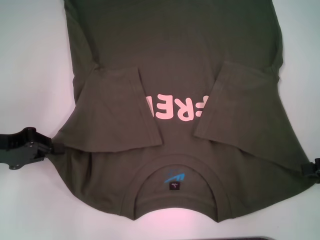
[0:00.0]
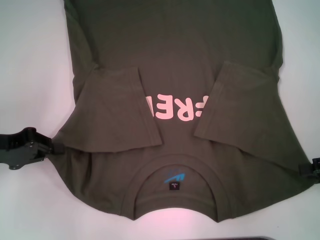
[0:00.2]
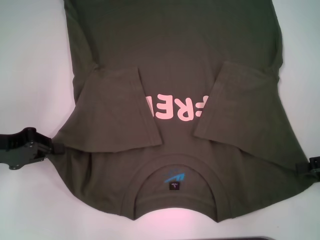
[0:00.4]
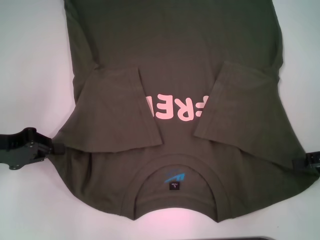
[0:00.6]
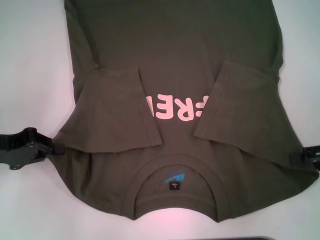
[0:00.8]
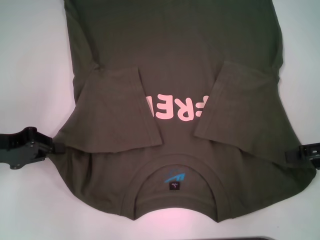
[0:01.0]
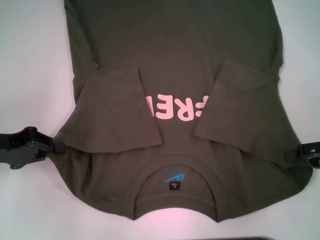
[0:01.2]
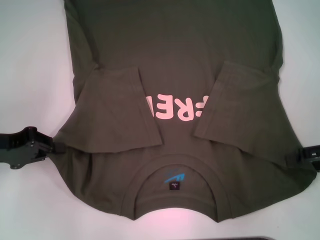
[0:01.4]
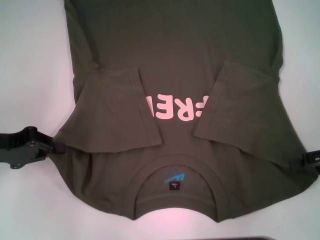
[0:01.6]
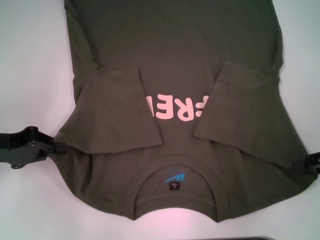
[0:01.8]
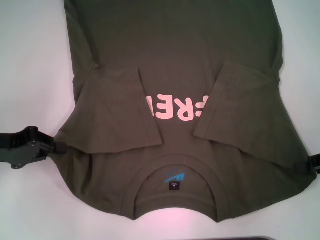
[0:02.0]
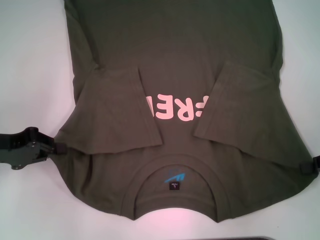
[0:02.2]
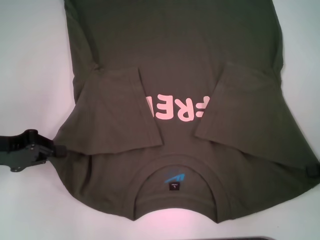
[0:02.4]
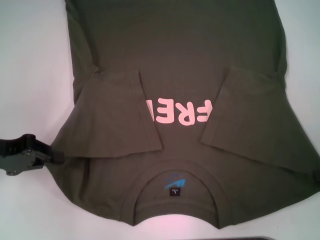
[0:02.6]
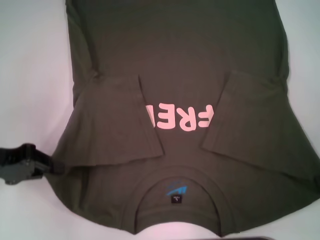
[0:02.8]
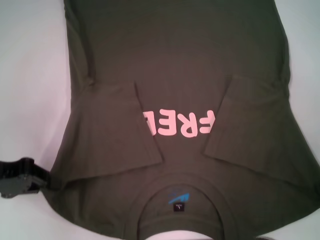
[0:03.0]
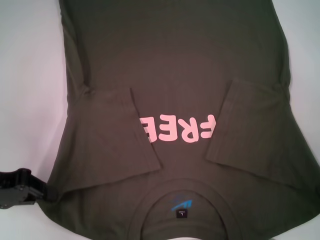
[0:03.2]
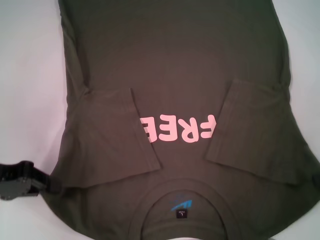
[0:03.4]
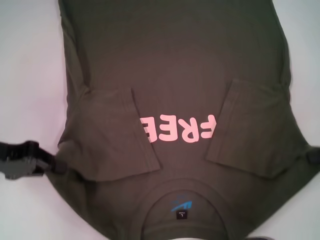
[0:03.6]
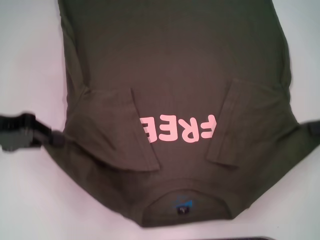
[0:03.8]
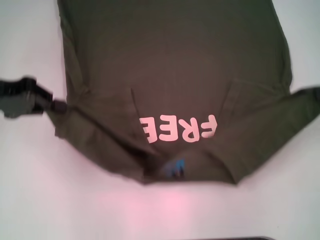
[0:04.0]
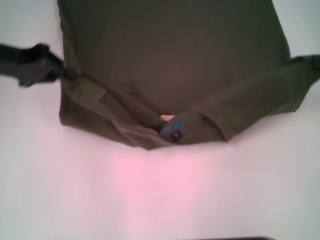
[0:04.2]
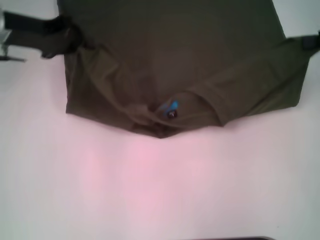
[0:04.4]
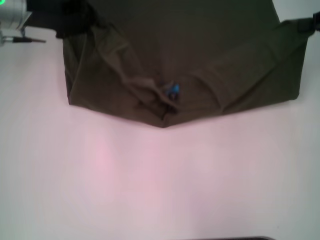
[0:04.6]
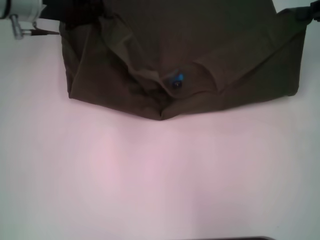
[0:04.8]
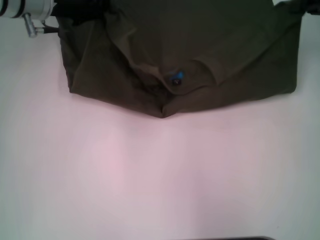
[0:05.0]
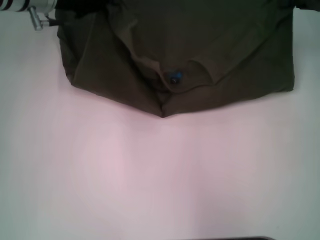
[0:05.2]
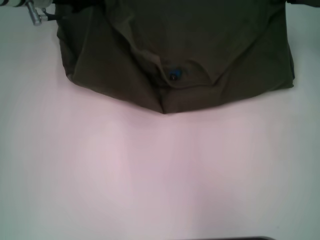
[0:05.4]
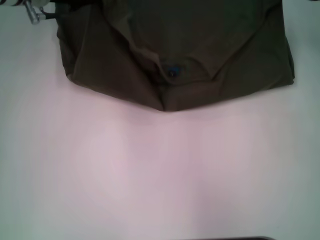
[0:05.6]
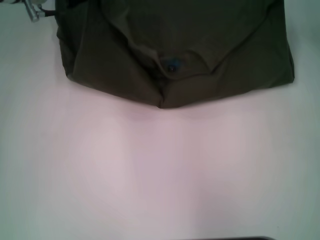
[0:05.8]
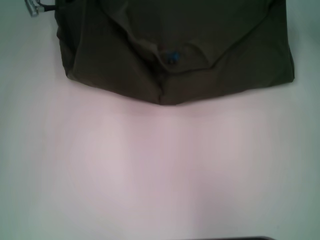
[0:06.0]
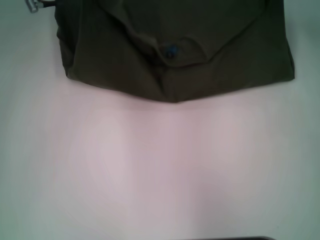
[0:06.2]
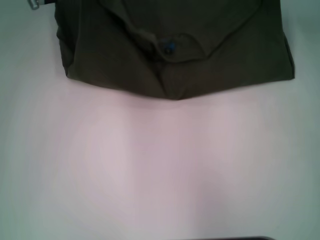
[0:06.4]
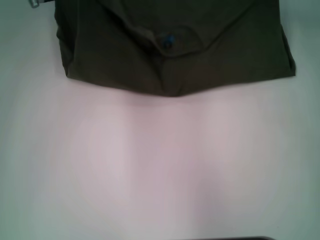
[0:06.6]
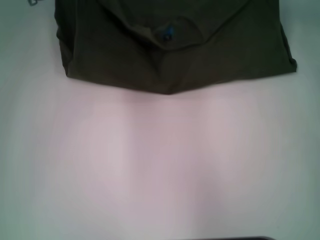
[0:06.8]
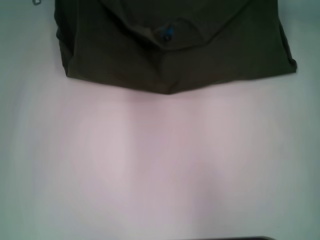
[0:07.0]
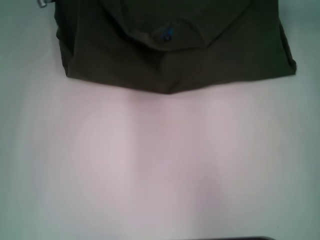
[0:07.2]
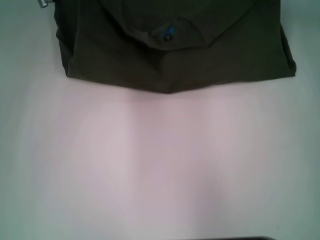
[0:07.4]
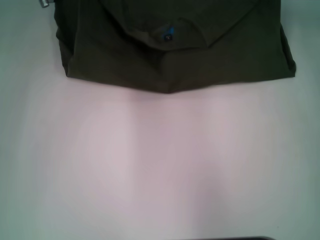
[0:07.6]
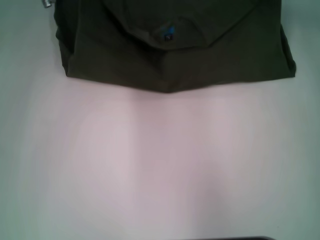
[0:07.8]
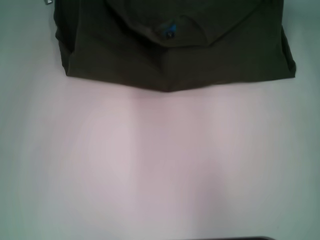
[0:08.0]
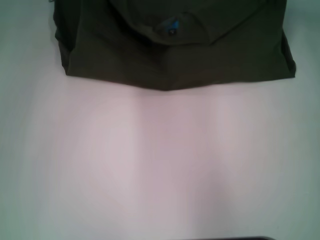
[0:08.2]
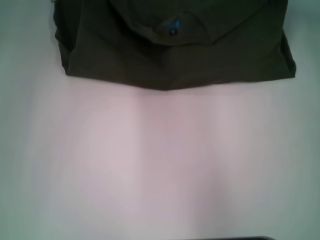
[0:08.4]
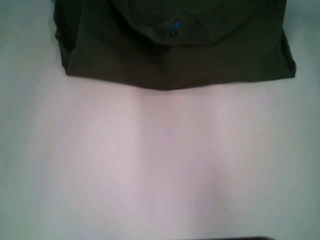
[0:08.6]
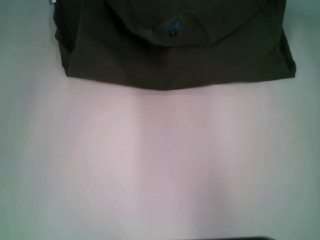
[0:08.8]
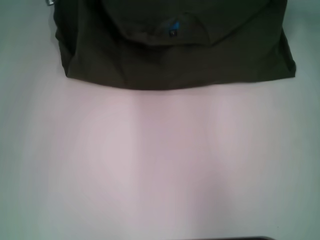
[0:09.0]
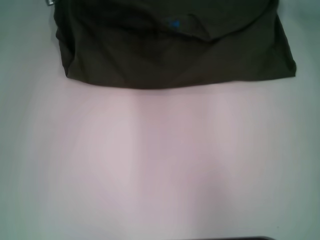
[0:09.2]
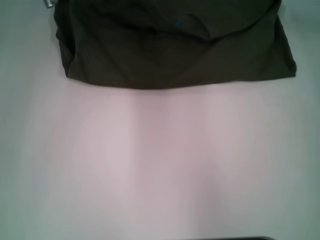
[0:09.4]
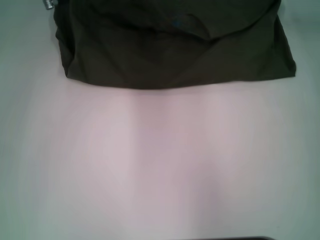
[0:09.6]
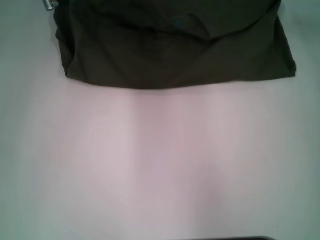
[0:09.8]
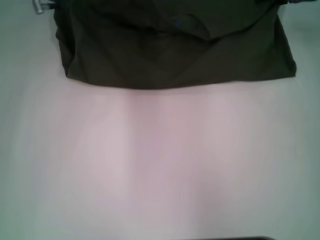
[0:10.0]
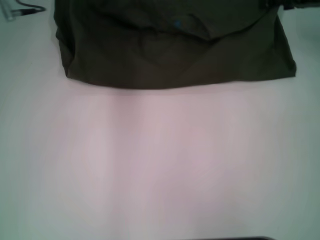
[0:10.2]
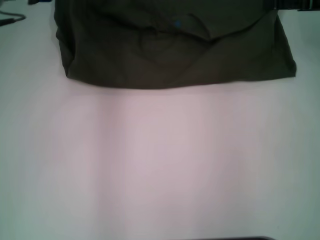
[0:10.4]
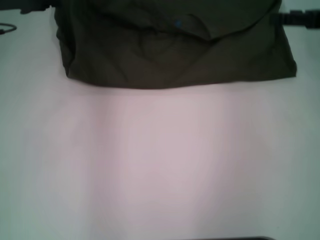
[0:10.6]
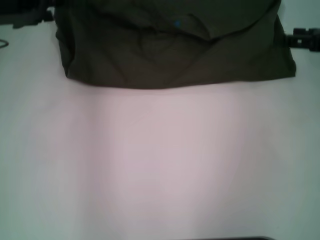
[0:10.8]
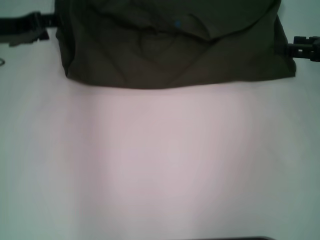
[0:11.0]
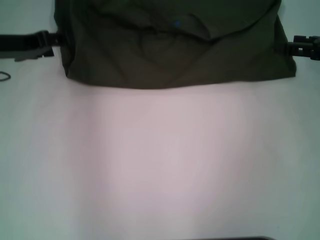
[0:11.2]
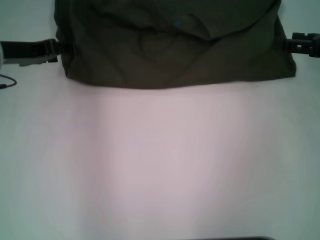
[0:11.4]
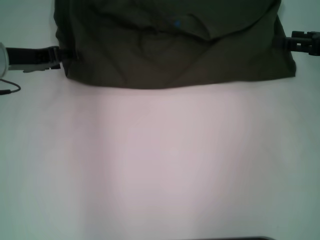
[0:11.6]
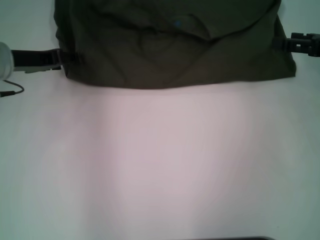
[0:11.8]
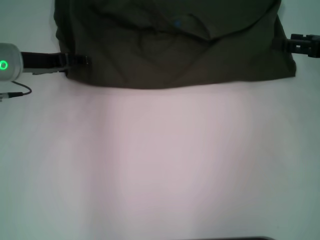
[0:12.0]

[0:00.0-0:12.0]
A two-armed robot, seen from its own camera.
Step, 0:02.4 to 0:10.6: Fold the clothes with your left hand.
Step, 0:02.4 to 0:10.6: Fold the clothes with your right hand.
0:00.0 to 0:01.6: The grippers stay close to where they were, moving slightly.
0:01.6 to 0:03.0: The right gripper closes its fingers.
0:03.0 to 0:04.4: The right gripper travels forward and upward by some 15 cm, while the left gripper travels forward, upward and to the right by some 20 cm.
0:04.4 to 0:06.0: The left gripper travels forward and to the right by approximately 10 cm. Meanwhile the right gripper heads forward and to the left, covering approximately 10 cm.
0:06.0 to 0:07.6: The grippers make only small movements.
0:09.0 to 0:10.4: The left gripper goes about 10 cm to the left and backward, and opens. The right gripper travels backward by roughly 5 cm, and opens up.
0:10.4 to 0:12.0: The right gripper travels backward by roughly 5 cm. The left gripper shifts about 10 cm downward.

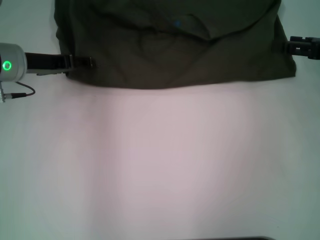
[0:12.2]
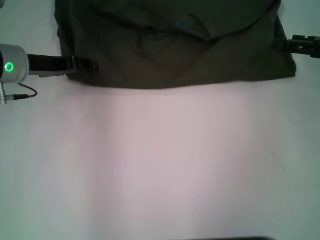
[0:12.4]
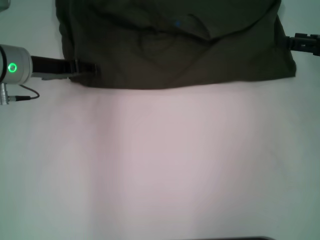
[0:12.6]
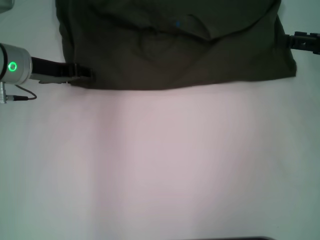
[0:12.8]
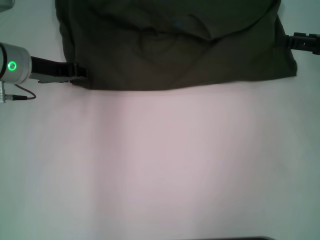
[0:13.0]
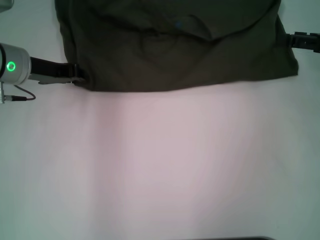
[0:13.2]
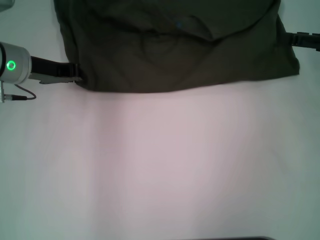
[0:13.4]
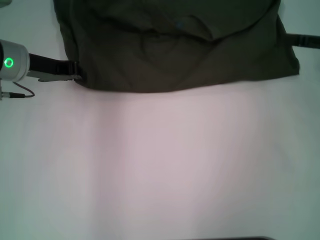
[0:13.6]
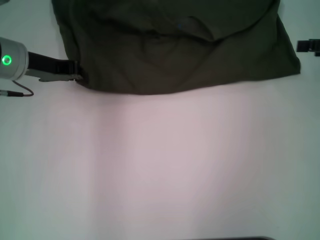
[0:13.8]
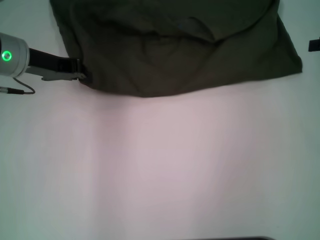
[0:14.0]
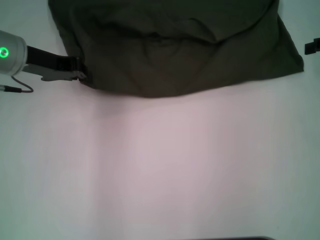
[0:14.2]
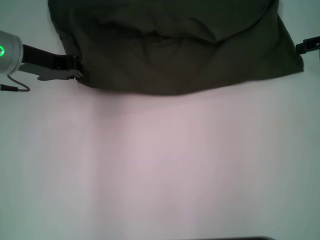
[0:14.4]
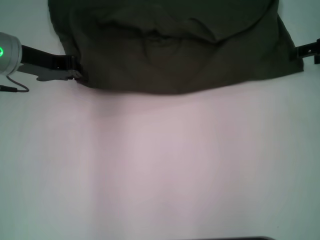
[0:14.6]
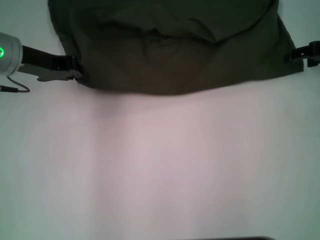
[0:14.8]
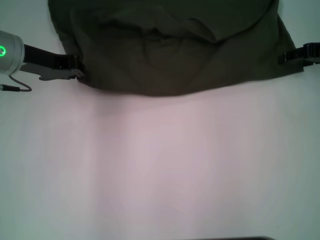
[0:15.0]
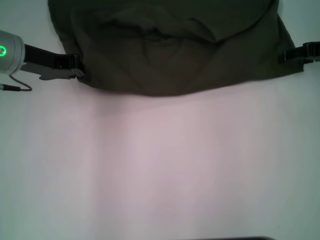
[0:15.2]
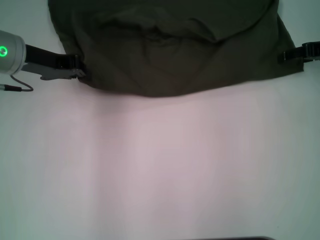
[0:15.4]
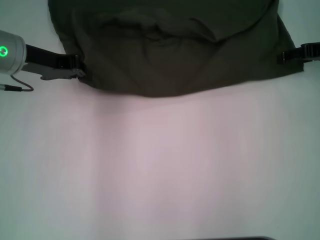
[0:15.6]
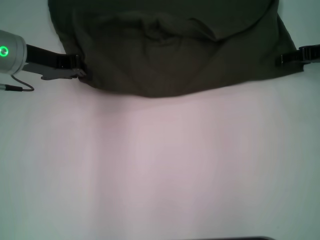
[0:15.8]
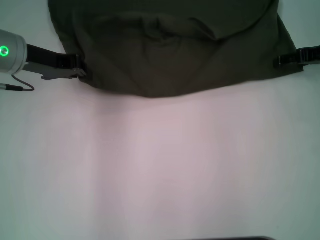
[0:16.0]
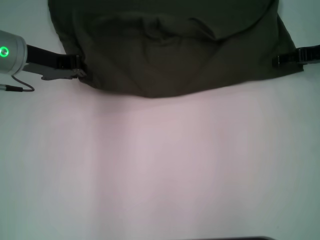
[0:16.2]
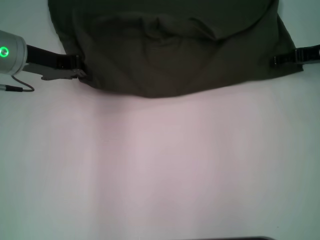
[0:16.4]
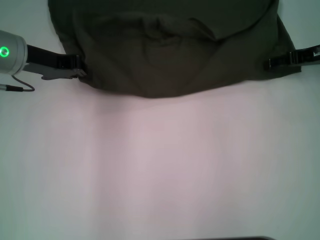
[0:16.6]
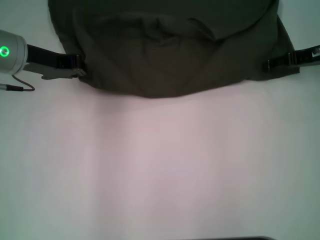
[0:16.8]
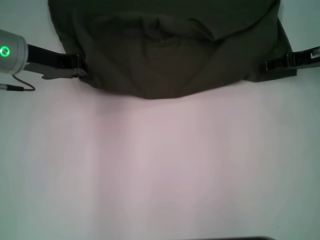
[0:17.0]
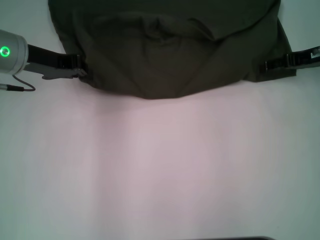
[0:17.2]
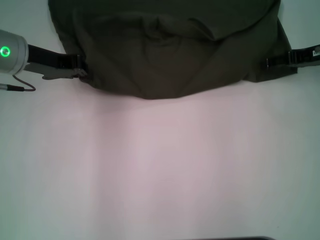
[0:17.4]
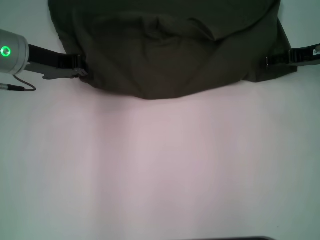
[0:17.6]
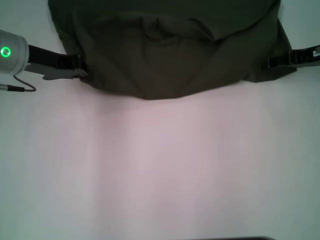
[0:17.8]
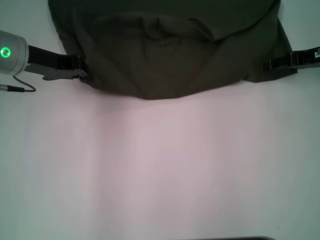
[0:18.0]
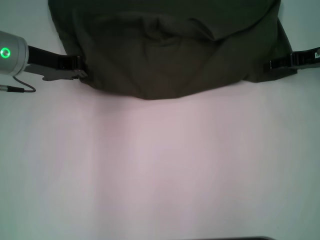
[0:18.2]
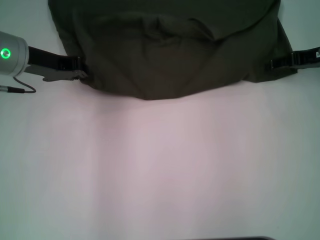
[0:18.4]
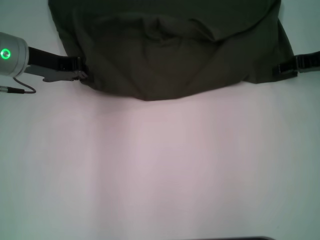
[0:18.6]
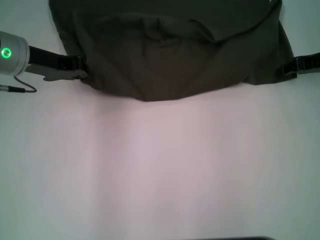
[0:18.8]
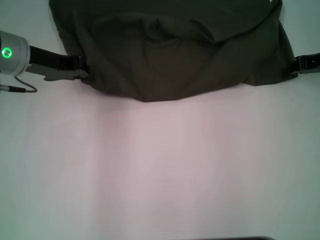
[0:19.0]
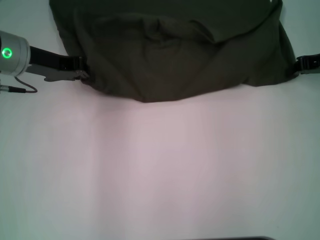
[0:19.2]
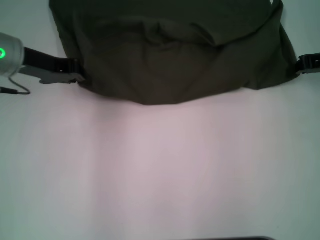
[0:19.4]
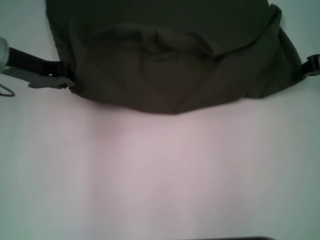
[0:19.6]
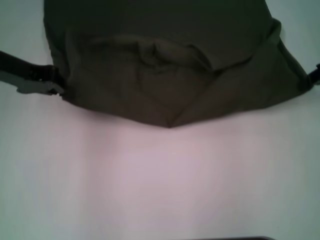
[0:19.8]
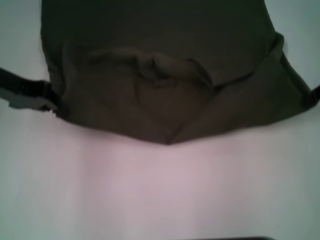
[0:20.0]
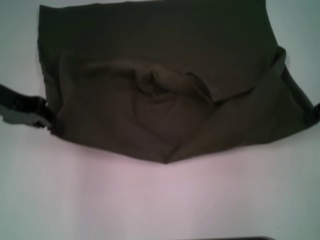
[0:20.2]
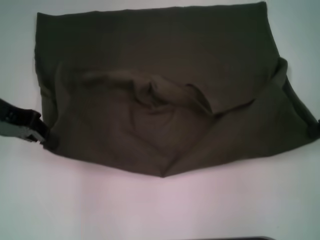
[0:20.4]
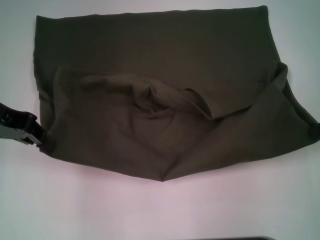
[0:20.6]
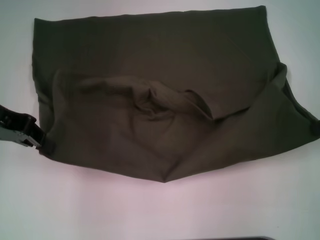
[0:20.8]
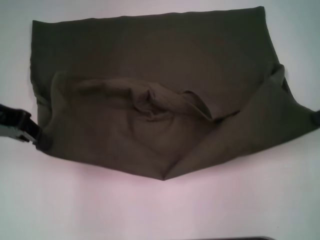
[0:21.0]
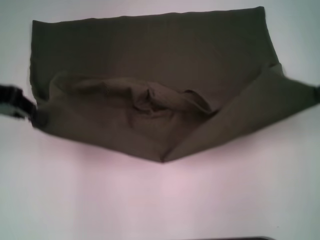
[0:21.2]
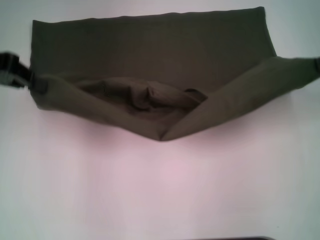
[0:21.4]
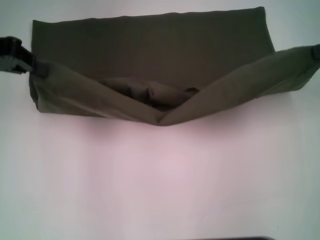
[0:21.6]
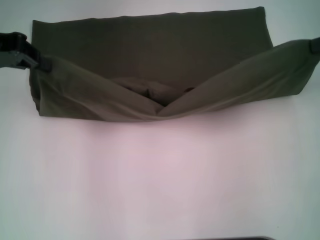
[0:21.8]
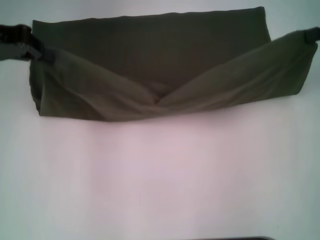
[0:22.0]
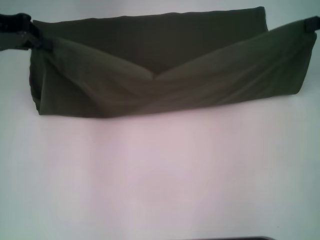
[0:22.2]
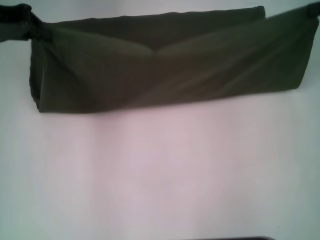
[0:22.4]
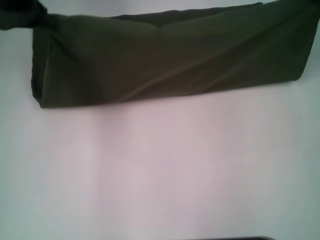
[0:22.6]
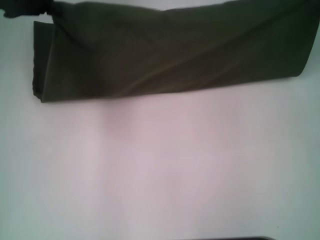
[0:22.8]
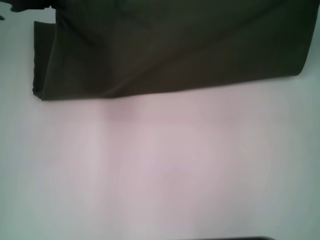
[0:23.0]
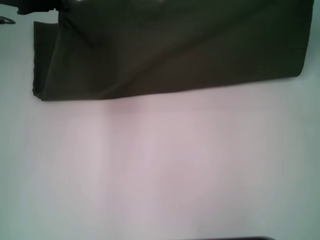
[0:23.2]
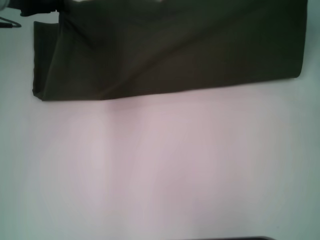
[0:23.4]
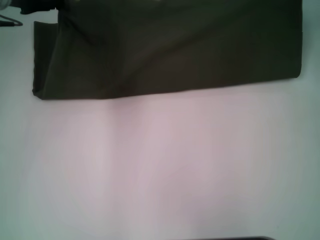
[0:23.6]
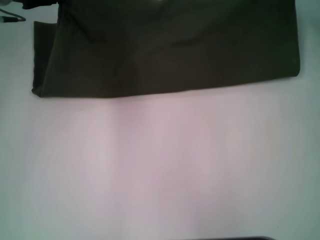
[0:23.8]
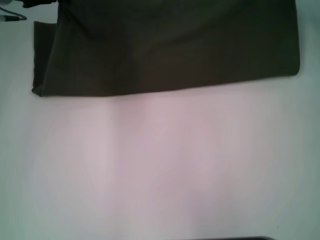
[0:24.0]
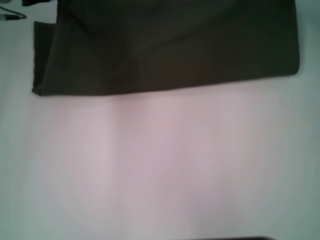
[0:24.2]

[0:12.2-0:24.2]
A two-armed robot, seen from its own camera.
Step, 0:12.2 to 0:20.8: Pull the clothes with your left hand.
Step, 0:12.2 to 0:20.8: Pull the clothes with your right hand.
0:12.2 to 0:13.8: The left gripper closes.
0:13.8 to 0:15.2: The right gripper goes about 5 cm forward.
0:15.2 to 0:18.2: There are only small adjustments of the grippers.
0:18.2 to 0:19.8: The right gripper travels upward by roughly 5 cm, and closes up.
0:19.8 to 0:21.2: The left gripper shifts by some 5 cm, while the right gripper ends up about 5 cm from where it was.
0:21.2 to 0:22.6: Both grippers move forward, some 5 cm.
0:22.6 to 0:24.2: The left gripper moves some 5 cm, while the right gripper shifts some 10 cm forward, downward and to the left.
